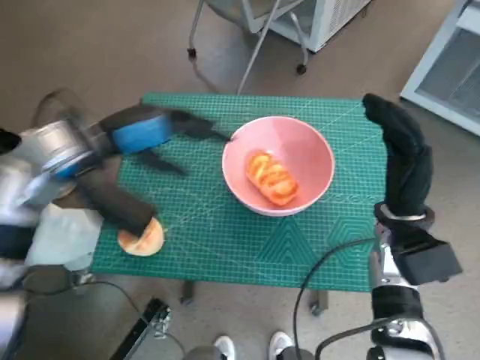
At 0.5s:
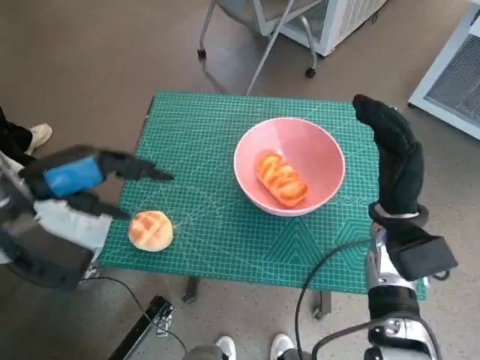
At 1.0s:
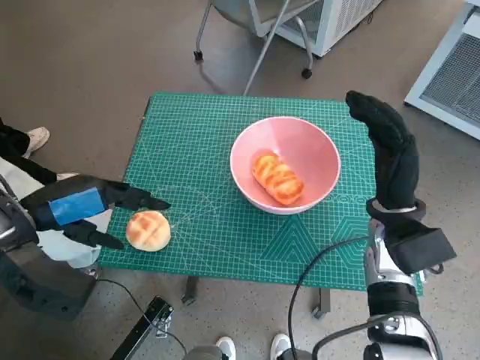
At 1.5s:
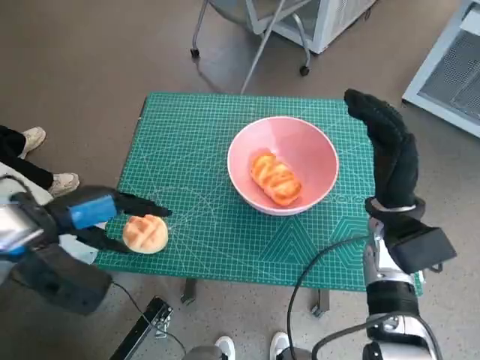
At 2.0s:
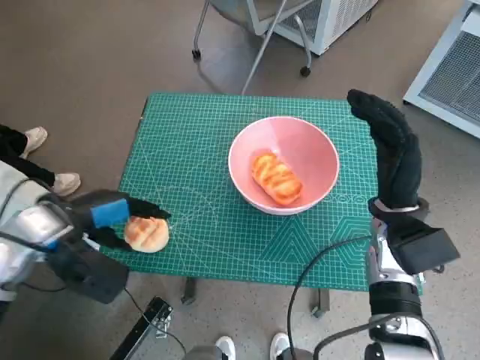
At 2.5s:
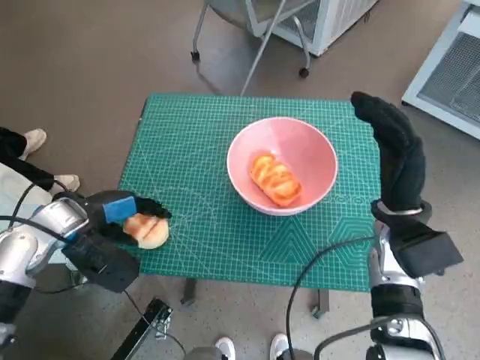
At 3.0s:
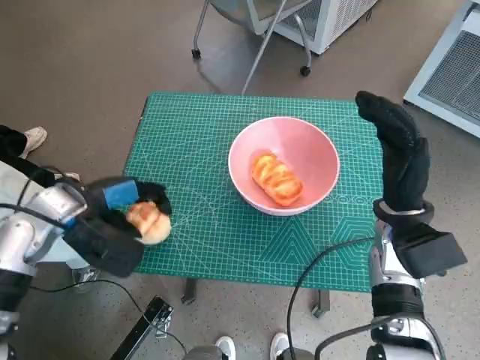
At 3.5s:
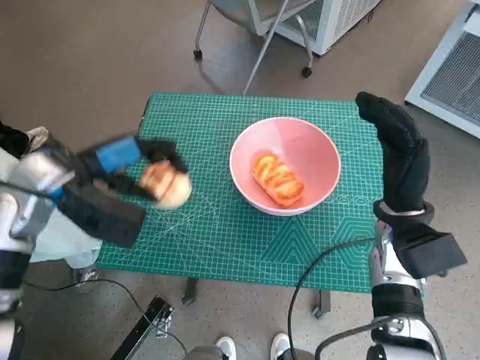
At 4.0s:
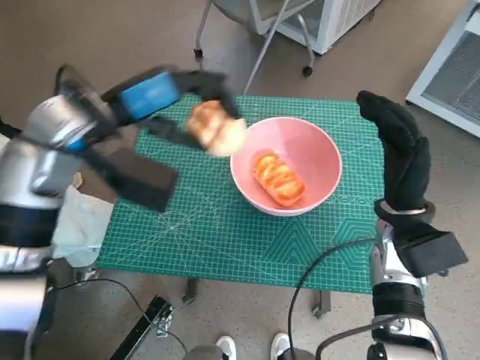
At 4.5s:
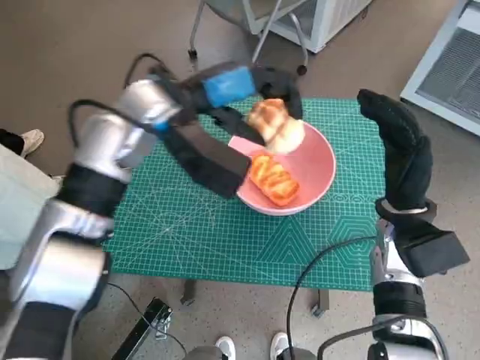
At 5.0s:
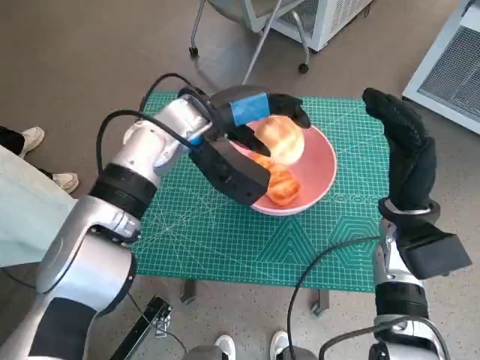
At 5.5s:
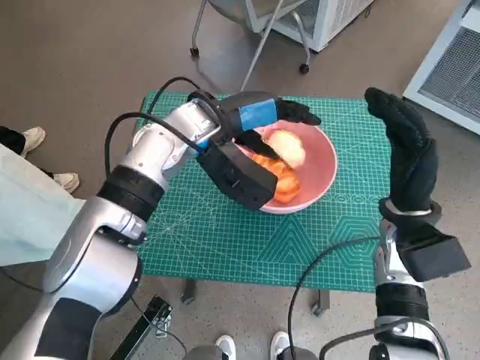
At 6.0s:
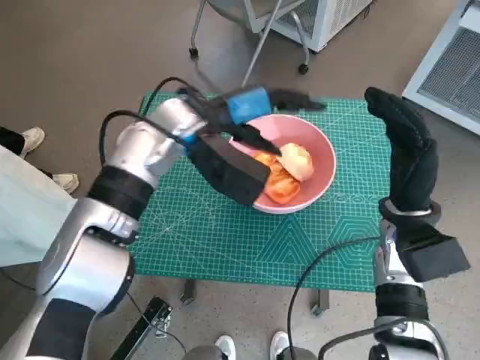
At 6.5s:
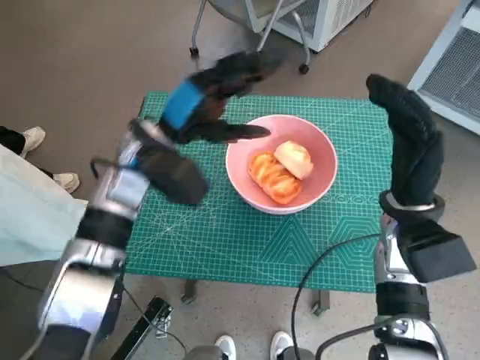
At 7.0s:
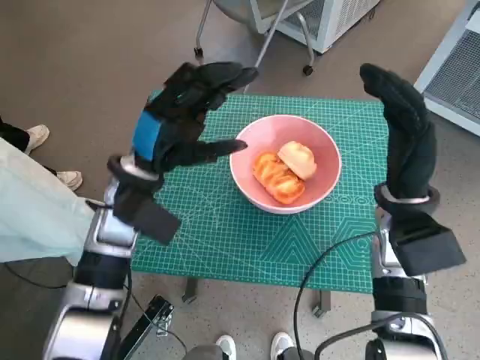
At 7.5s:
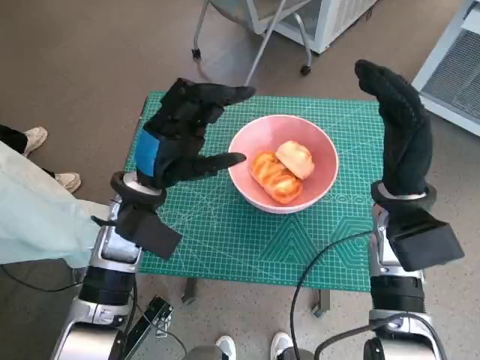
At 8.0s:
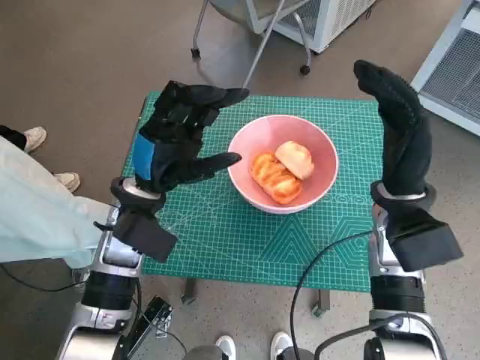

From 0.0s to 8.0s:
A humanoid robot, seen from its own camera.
Task of the whole recording: Push the bowl to the center of the table and put the bread into the bowl.
Step, from 0.0s to 2.0s: Grasp the round bread with left hand.
Step, from 2.5s to 5.5s: Place the round bread in pink bowl with left hand.
From 0.0s to 2.0s: The left hand moves downward, to the left and backward, some 10 cm.
From 2.0s to 4.0s: The left hand travels upward, to the right and forward by approximately 15 cm.
From 4.0s to 6.0s: The left hand travels to the right by approximately 10 cm.
From 6.0s to 8.0s: The left hand moves downward, backward and to the left, some 15 cm.

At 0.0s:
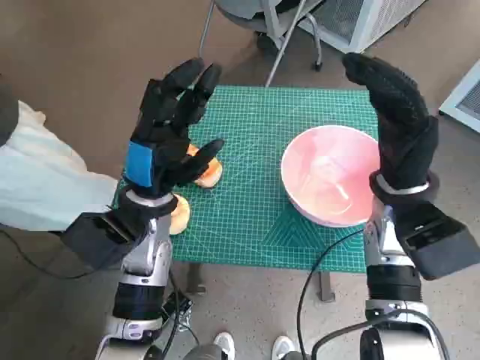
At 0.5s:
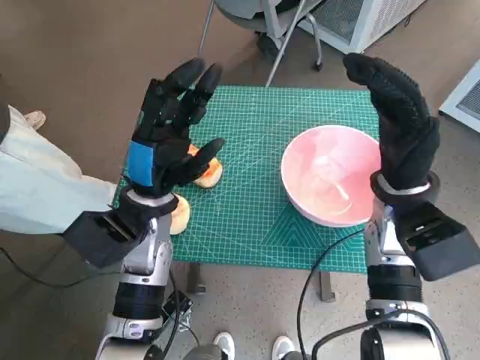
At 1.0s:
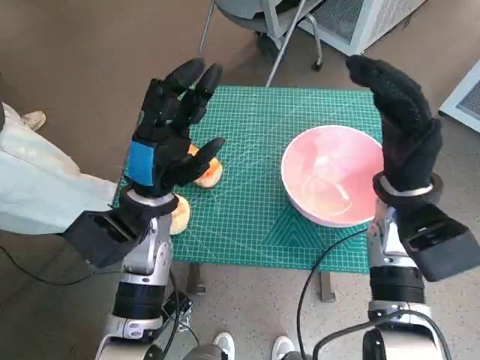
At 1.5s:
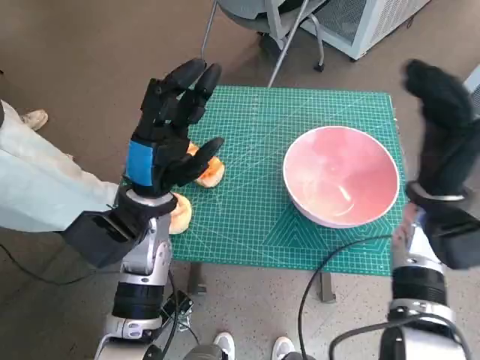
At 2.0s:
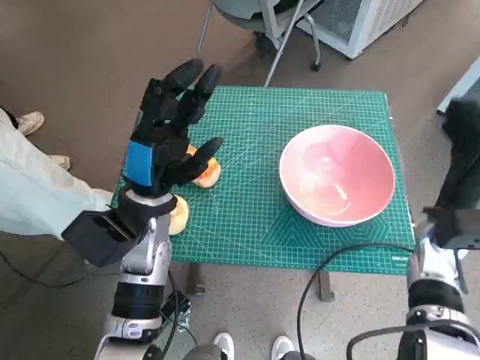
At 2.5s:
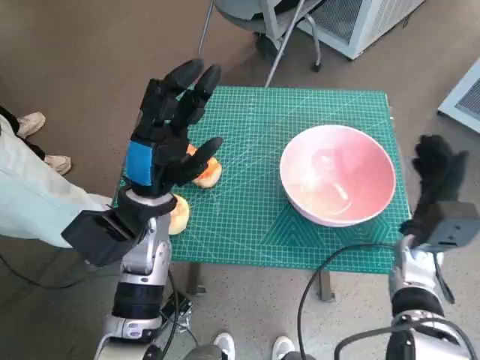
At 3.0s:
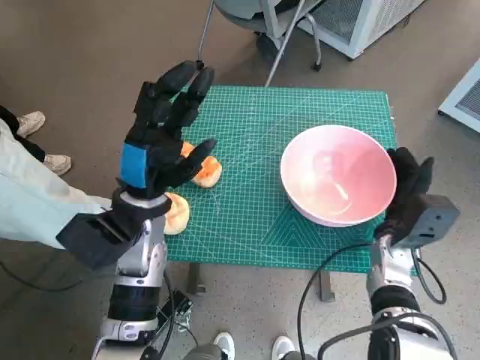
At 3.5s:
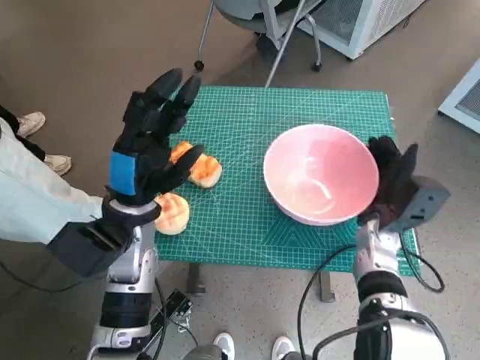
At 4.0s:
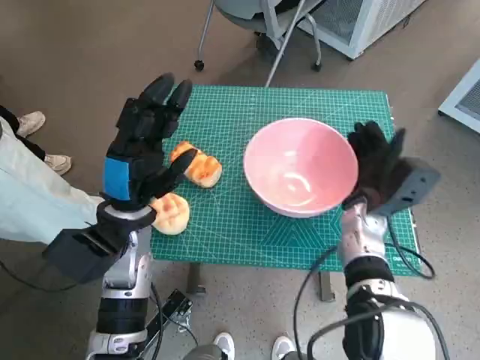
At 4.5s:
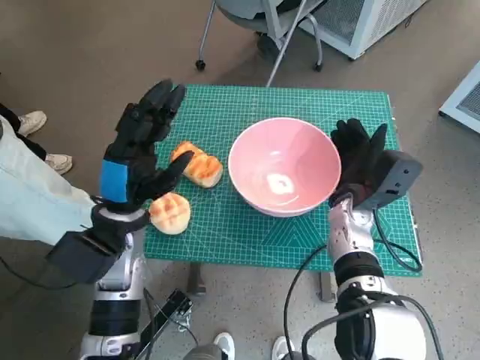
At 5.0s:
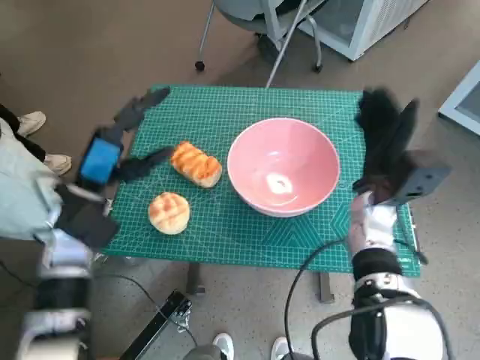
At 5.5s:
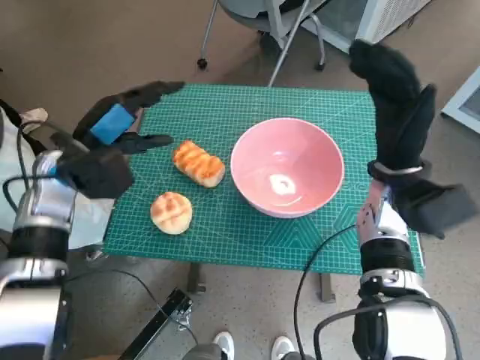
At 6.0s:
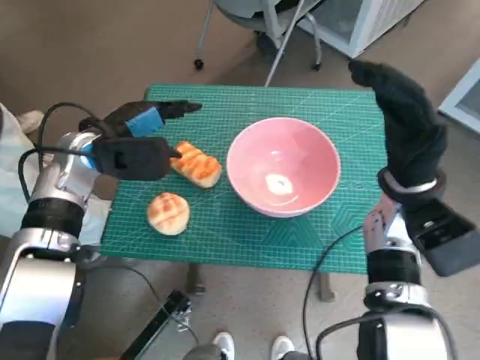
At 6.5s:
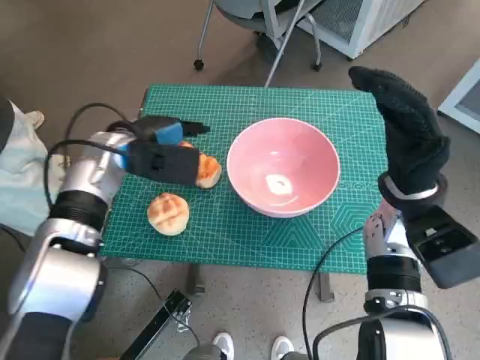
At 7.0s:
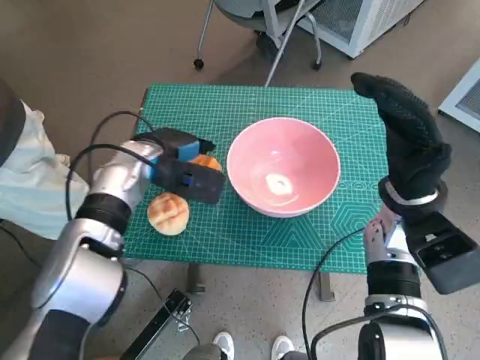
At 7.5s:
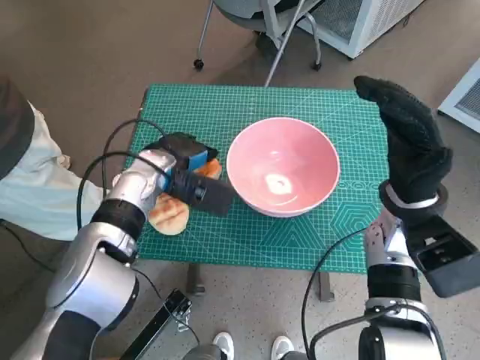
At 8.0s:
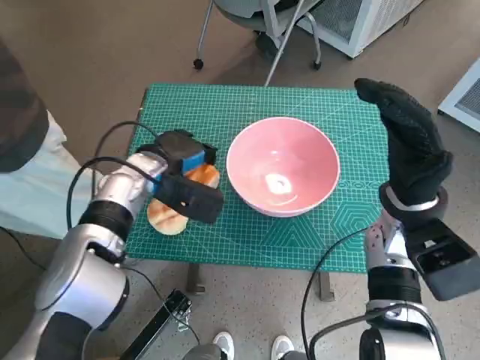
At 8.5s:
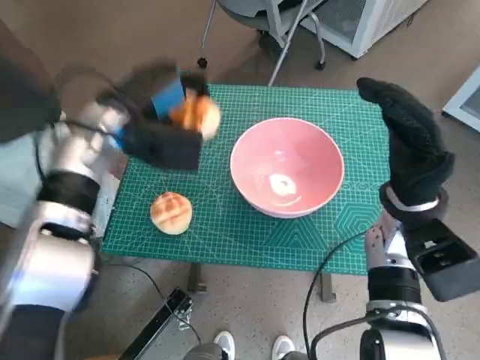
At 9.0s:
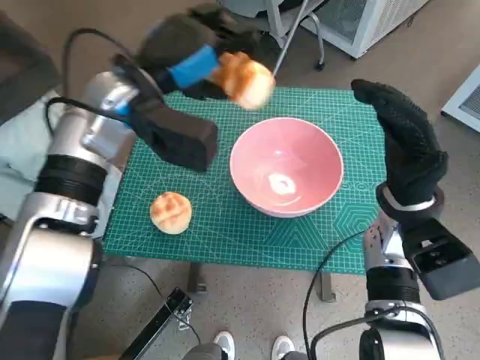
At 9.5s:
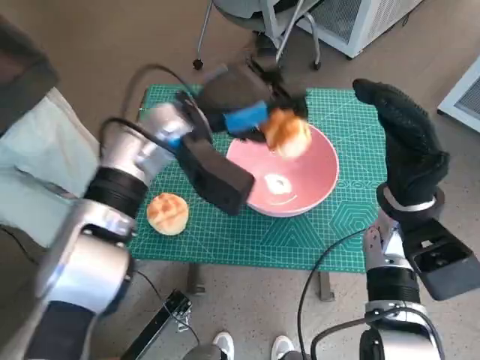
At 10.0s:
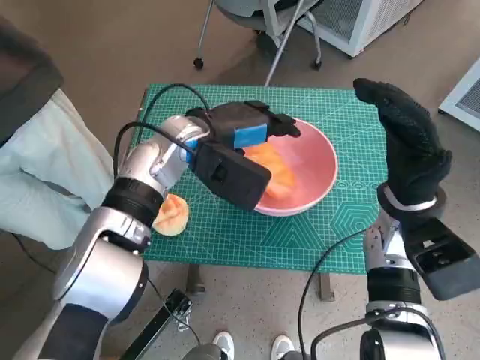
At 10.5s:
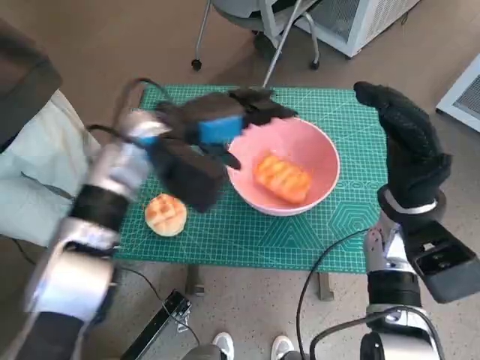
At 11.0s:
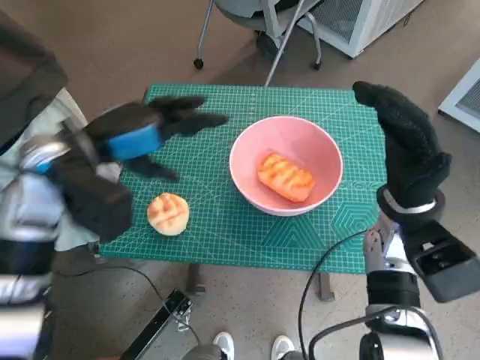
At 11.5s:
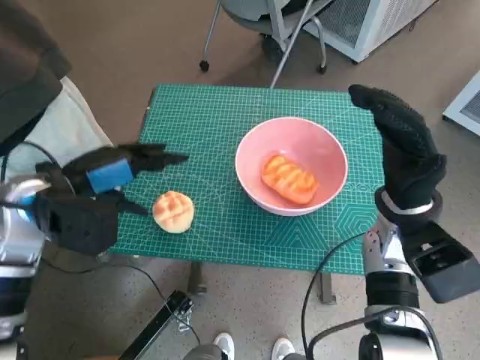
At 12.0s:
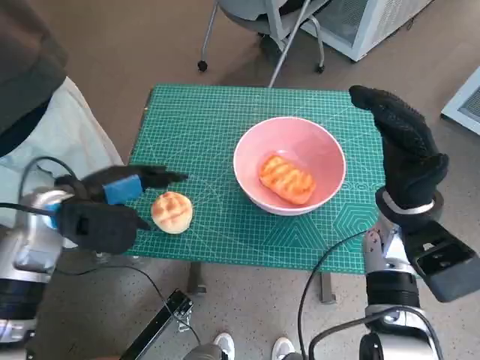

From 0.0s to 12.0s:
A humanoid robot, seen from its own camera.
Task of the whole recording: Push the bowl to the center of the table and put the bread into the bowl.
Step, from 0.0s to 4.5s: Move the pink bowl to the center of table with right hand.
Step, from 5.0s to 7.5s: Grasp the long bread with left hand.
Step, from 8.0s to 10.0s: Place the long bread in pink bowl with left hand.
From 2.0s to 4.0s: The right hand heads to the left, covering approximately 10 cm.
From 4.0s to 6.0s: The right hand heads upward, covering about 10 cm. The left hand is displaced forward, to the left and upward by some 10 cm.
From 6.0s to 8.0s: The left hand goes about 10 cm to the right and downward.
From 8.0s to 10.0s: The left hand travels upward and to the right by some 10 cm.
From 10.0s to 12.0s: The left hand moves to the left and backward, some 20 cm.

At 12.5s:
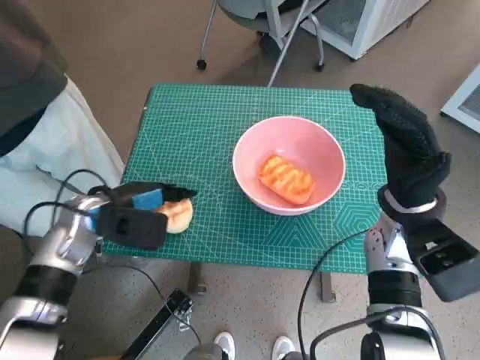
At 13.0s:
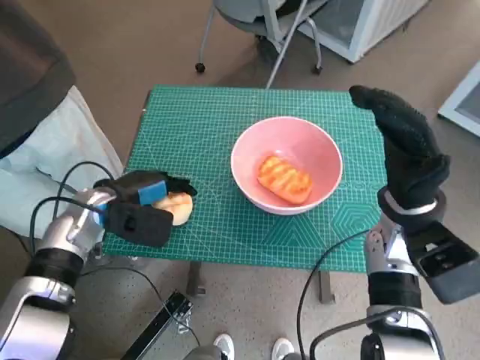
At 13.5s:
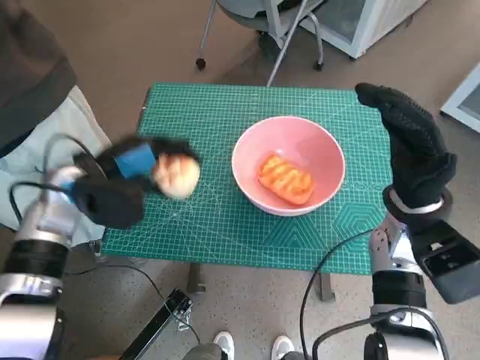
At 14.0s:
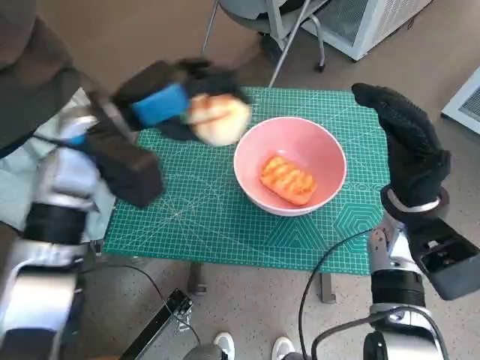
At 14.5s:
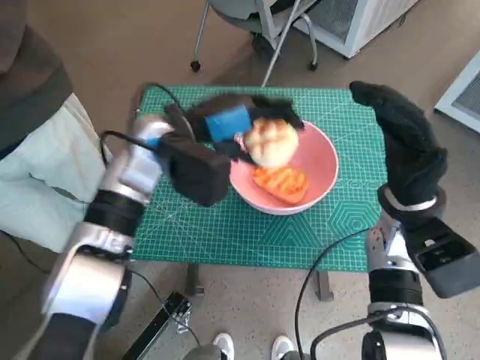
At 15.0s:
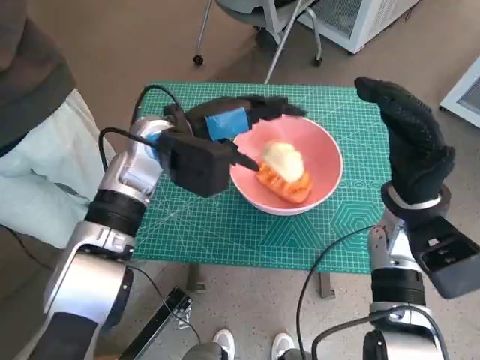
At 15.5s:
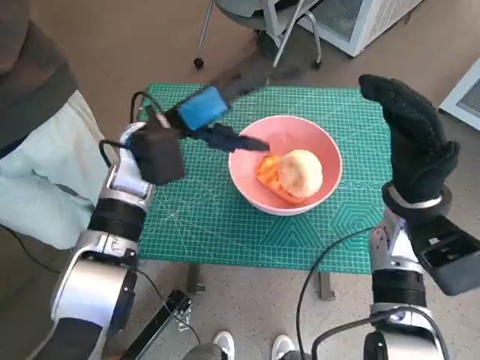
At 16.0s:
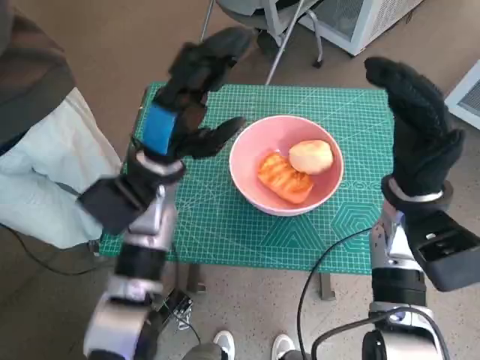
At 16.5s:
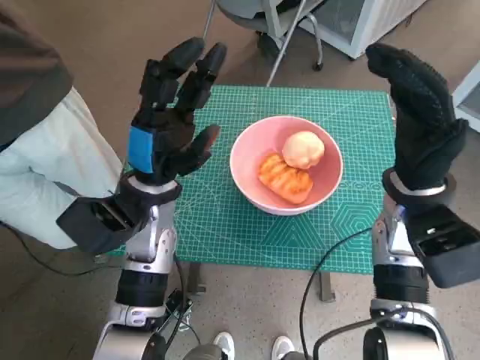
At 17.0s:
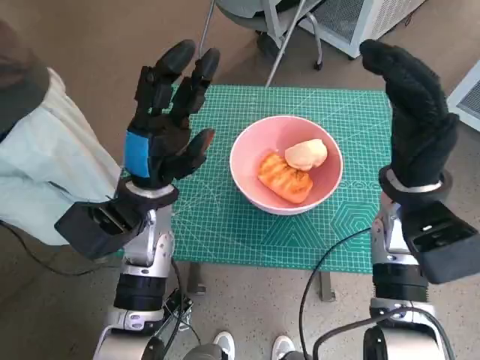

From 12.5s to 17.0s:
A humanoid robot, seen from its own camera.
Task of the whole recording: Push the bowl to the center of the table and put the bread into the bowl.
Step, from 13.5s to 14.5s: Place the round bread in pink bowl with left hand.
From 12.5s to 14.5s: The left hand goes about 15 cm to the right, upward and forward.
From 14.5s to 17.0s: The left hand heads downward and backward, covering some 10 cm.

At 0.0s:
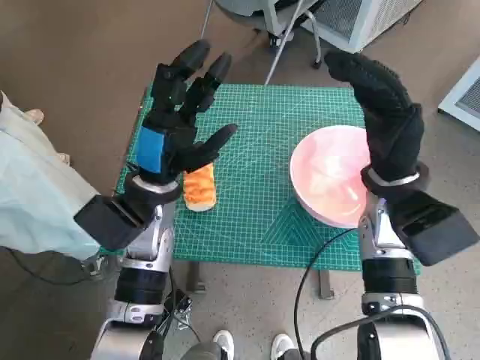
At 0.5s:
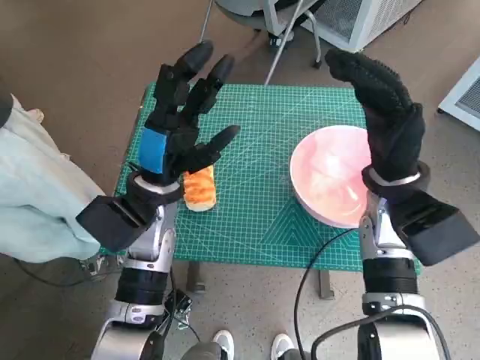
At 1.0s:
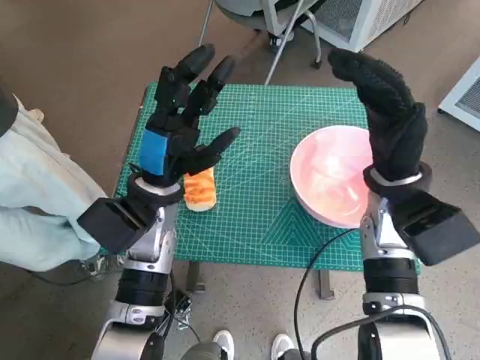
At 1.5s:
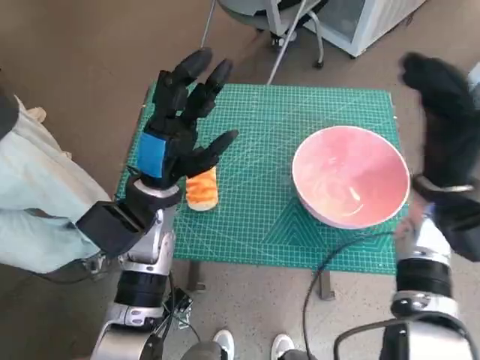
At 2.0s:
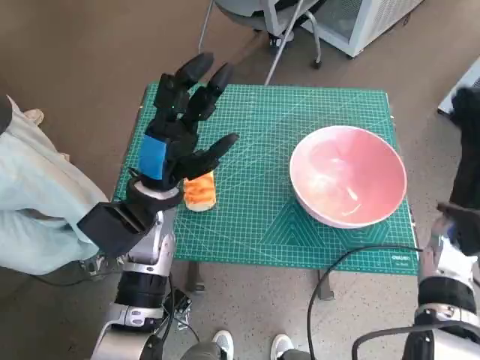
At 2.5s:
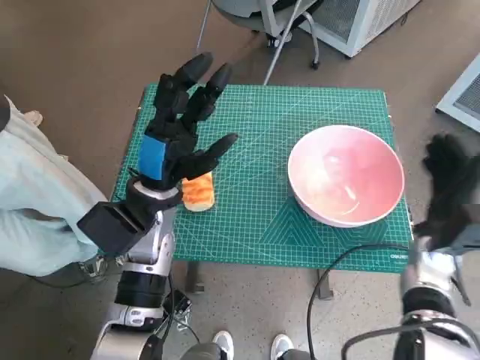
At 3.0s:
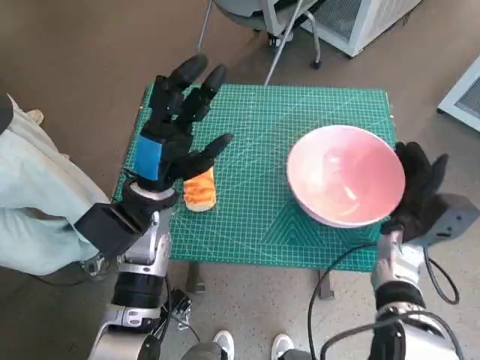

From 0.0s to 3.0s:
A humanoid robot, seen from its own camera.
Task of the whole recording: Push the bowl to the center of the table and put the bread into the bowl.
From 1.5s to 3.0s: The right hand moves downward, roughly 10 cm.
